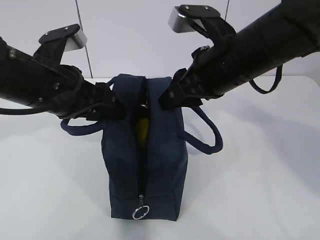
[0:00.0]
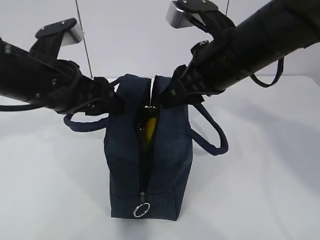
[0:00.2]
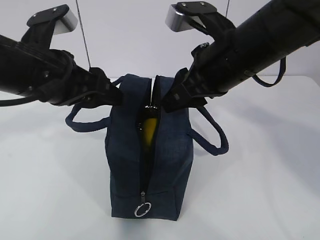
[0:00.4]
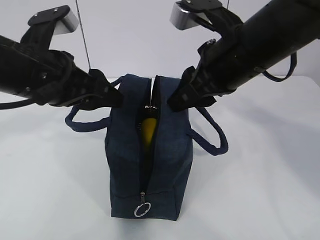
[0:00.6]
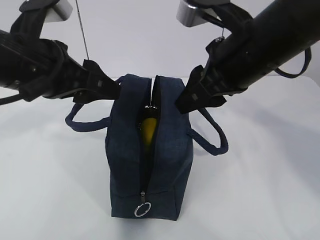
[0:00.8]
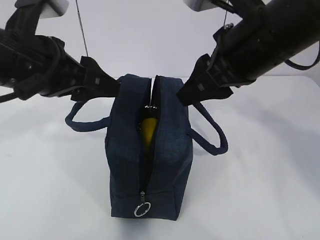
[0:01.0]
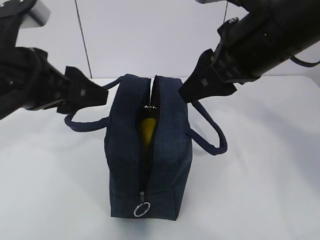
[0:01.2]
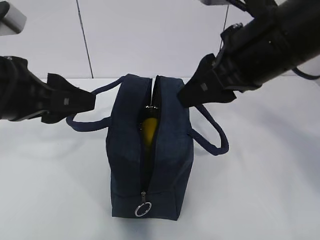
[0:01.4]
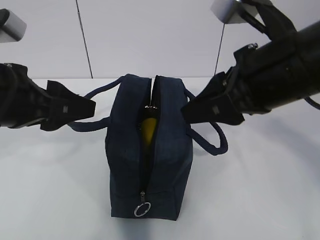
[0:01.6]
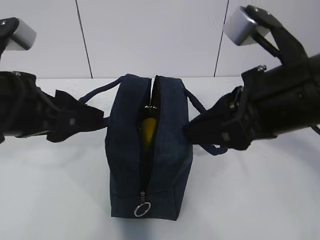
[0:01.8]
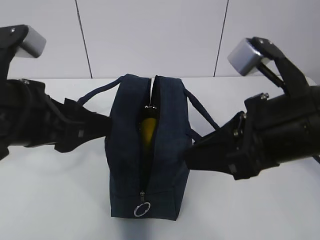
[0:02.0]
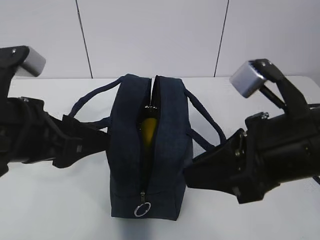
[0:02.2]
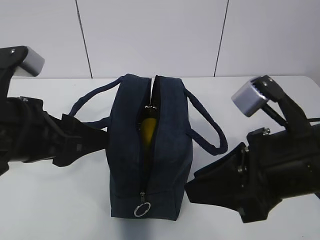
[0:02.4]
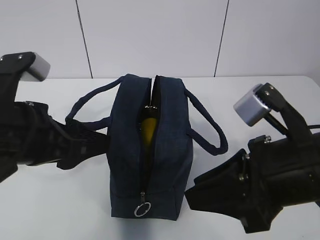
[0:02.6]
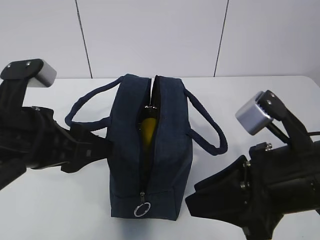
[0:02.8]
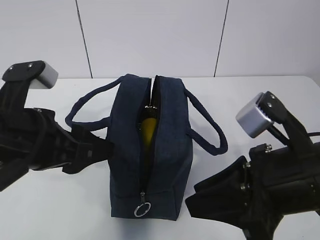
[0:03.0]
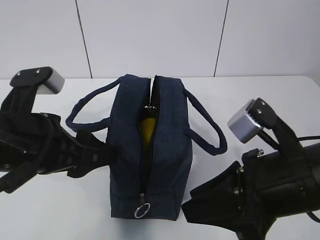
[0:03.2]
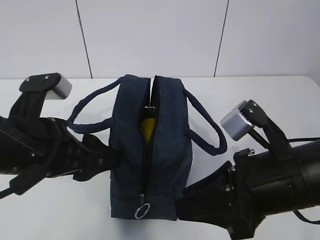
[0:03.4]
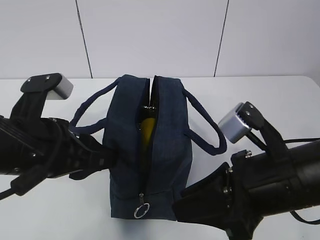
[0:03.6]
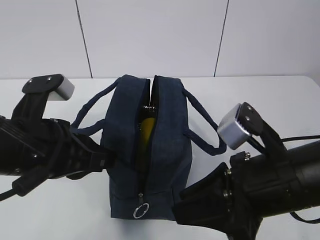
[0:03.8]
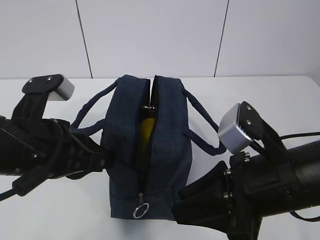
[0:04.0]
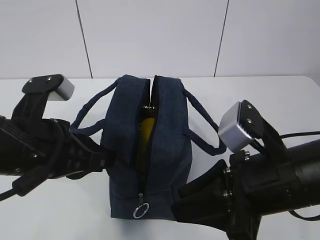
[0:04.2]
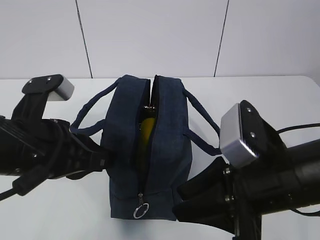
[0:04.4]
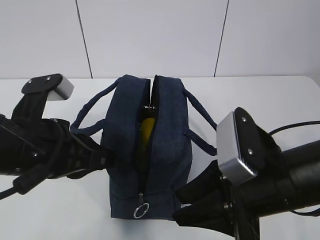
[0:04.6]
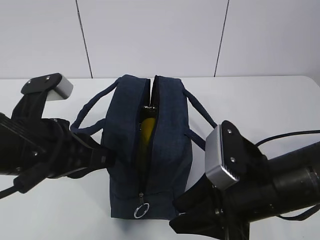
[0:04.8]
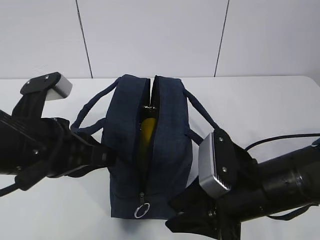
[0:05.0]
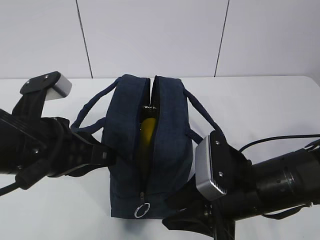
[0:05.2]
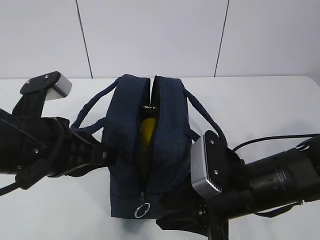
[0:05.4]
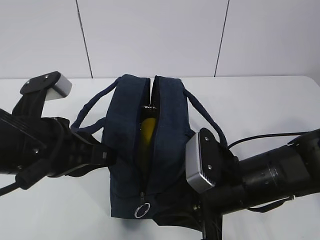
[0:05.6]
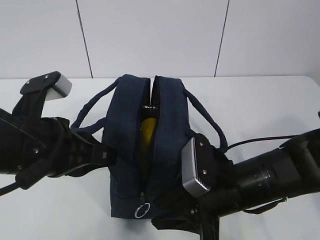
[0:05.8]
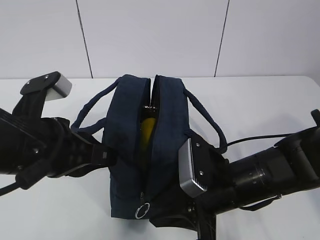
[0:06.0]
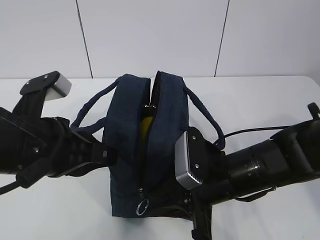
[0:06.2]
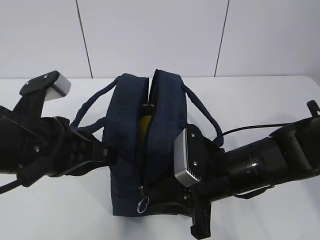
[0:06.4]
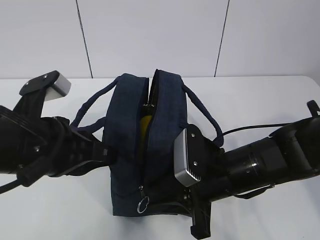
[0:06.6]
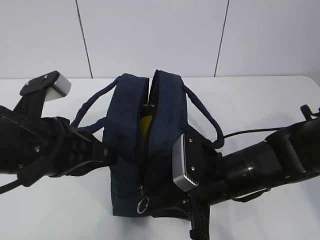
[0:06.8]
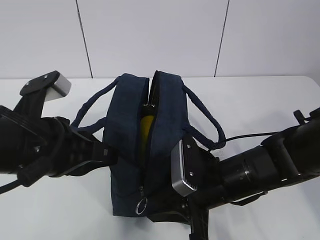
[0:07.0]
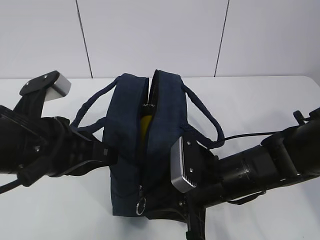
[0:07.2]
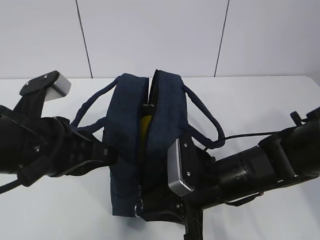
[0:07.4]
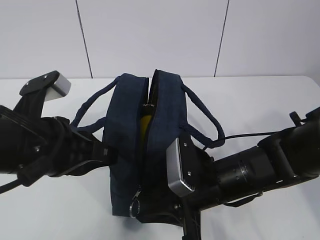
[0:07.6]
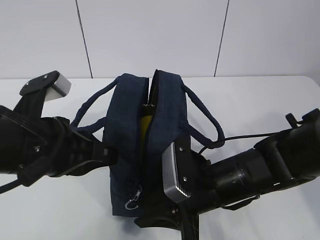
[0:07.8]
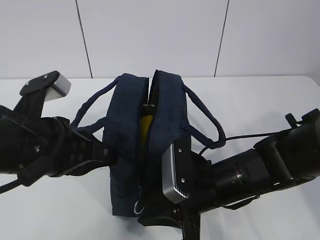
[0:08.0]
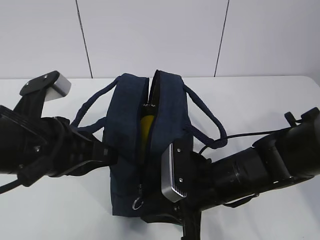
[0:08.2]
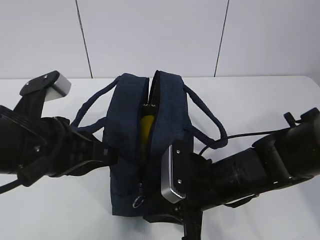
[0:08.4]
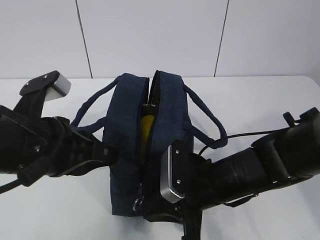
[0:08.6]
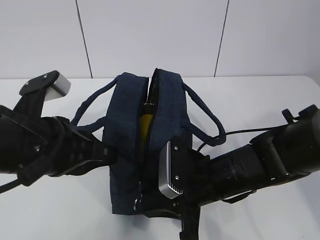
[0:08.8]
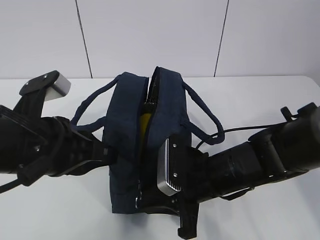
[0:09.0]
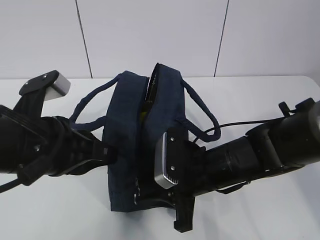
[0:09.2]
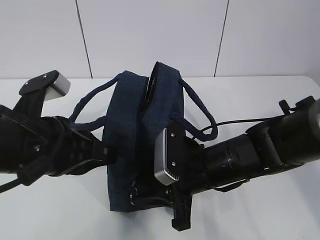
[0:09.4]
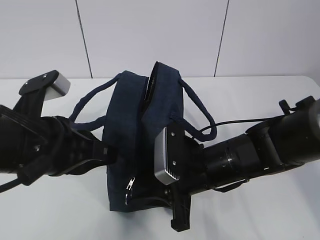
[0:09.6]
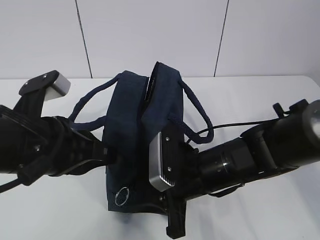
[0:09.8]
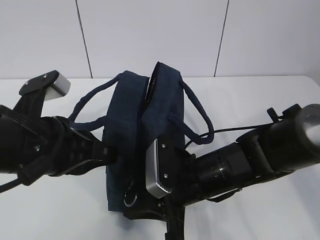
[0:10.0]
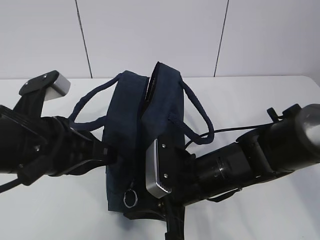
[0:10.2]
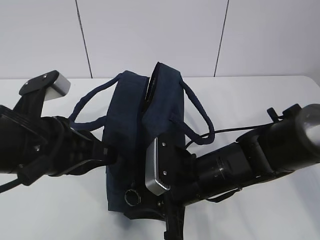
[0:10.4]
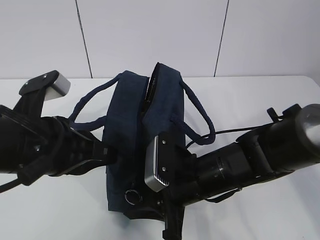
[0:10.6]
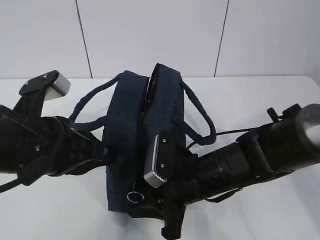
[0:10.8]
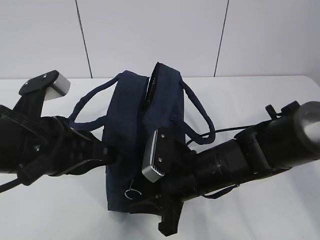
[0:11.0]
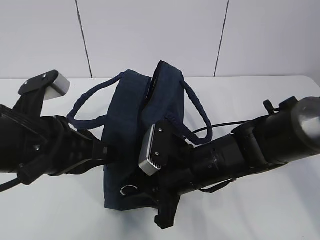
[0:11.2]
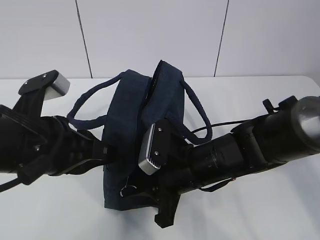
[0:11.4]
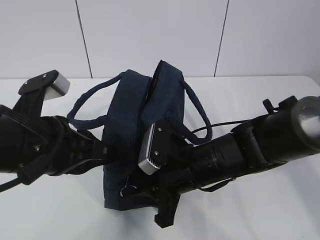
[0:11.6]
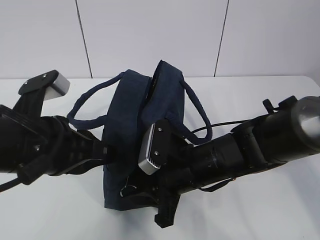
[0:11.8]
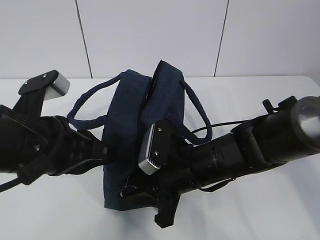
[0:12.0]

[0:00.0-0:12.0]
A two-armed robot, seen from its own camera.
0:00.0 to 0:01.6: Both grippers move backward, some 5 cm.
0:01.6 to 0:03.0: The left gripper moves some 5 cm. Meanwhile the right gripper moves downward and backward, approximately 10 cm.
0:03.0 to 0:04.4: The left gripper closes up.
0:04.4 to 0:06.0: The right gripper goes roughly 10 cm downward and forward.
0:06.0 to 0:12.0: The grippers make only small movements.

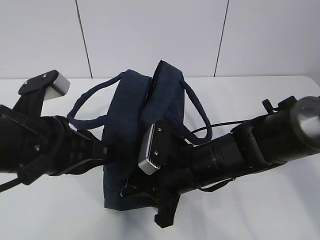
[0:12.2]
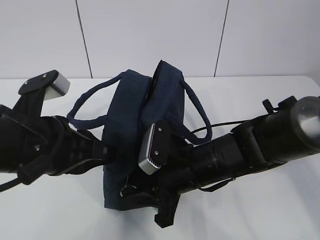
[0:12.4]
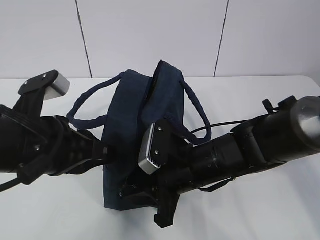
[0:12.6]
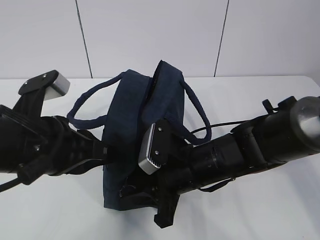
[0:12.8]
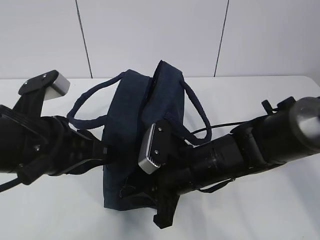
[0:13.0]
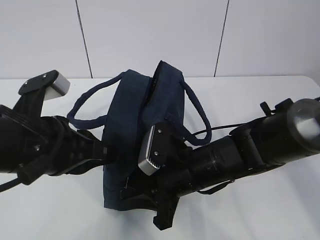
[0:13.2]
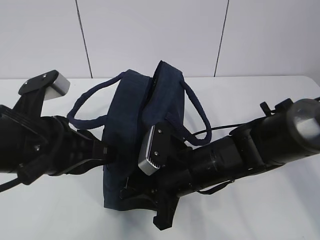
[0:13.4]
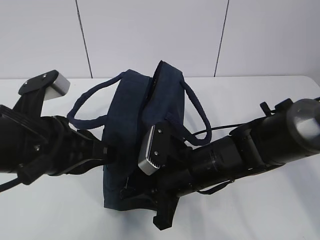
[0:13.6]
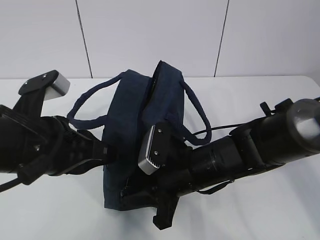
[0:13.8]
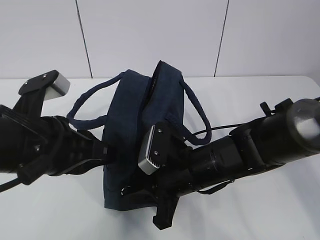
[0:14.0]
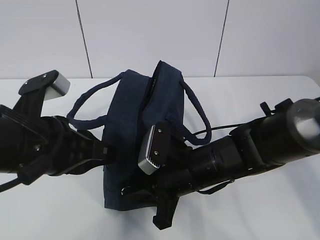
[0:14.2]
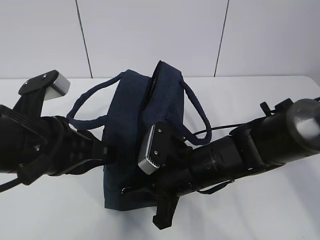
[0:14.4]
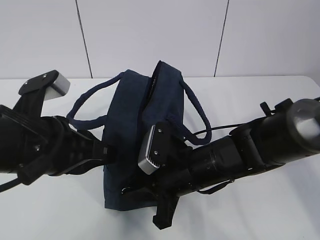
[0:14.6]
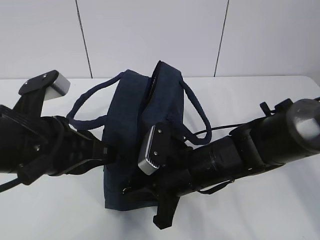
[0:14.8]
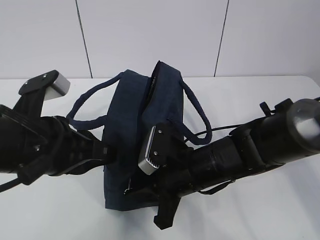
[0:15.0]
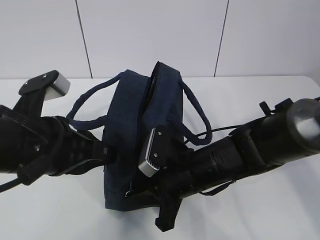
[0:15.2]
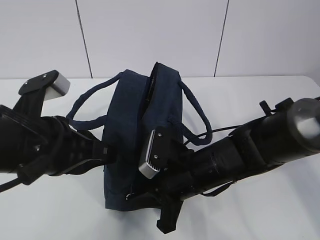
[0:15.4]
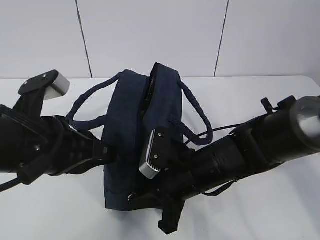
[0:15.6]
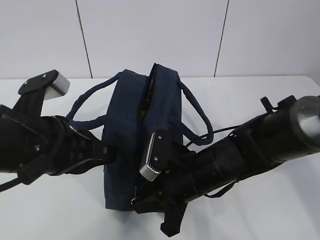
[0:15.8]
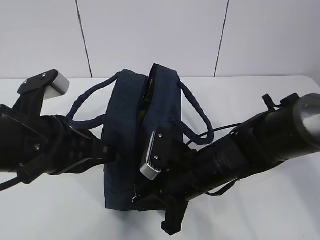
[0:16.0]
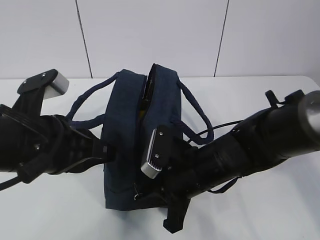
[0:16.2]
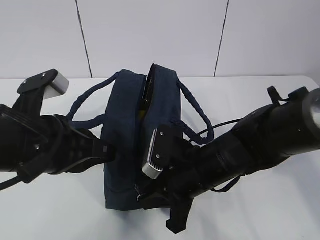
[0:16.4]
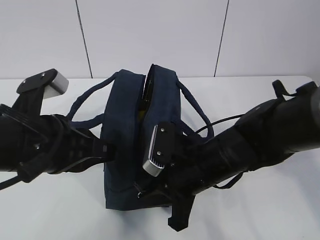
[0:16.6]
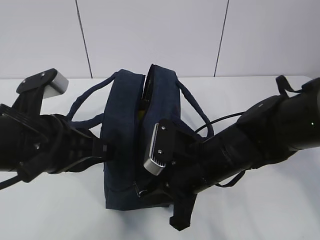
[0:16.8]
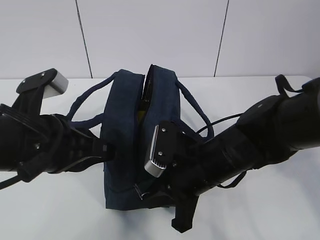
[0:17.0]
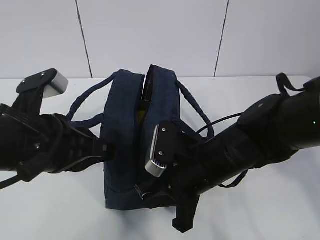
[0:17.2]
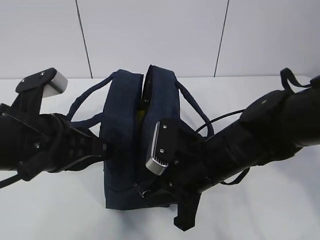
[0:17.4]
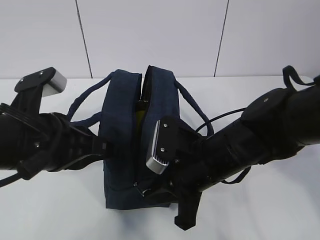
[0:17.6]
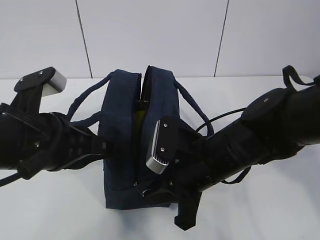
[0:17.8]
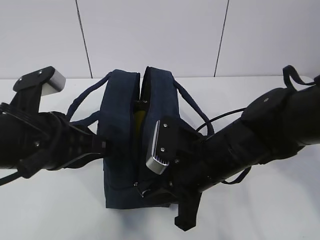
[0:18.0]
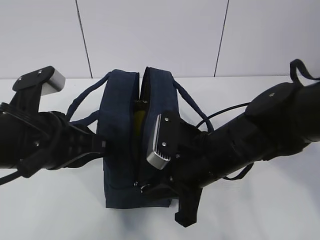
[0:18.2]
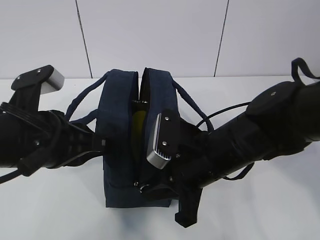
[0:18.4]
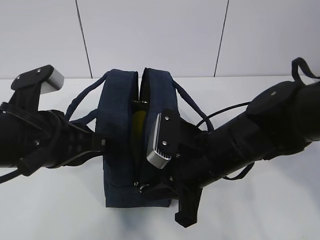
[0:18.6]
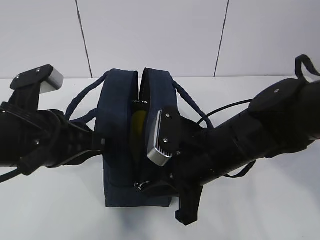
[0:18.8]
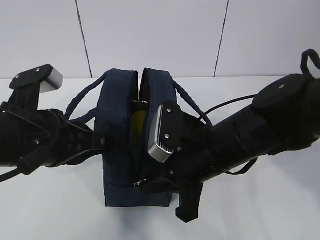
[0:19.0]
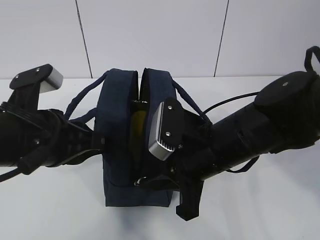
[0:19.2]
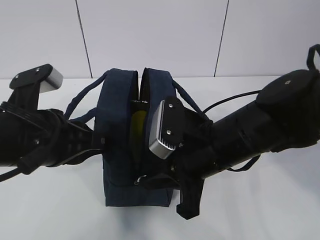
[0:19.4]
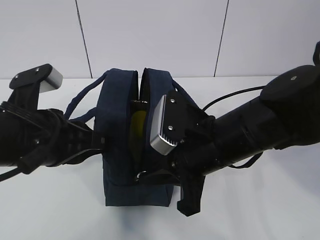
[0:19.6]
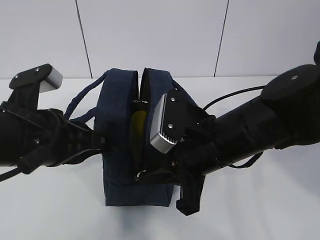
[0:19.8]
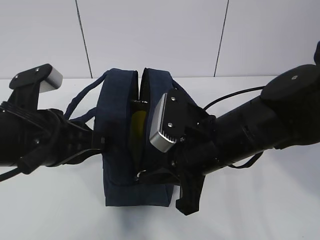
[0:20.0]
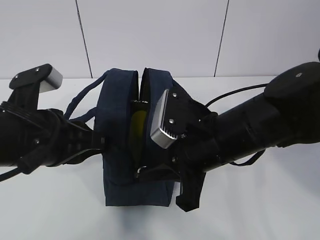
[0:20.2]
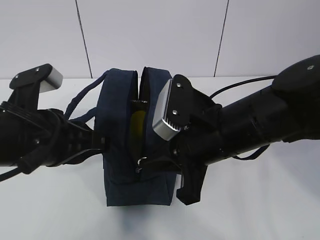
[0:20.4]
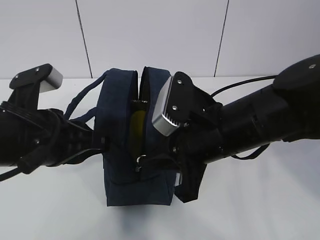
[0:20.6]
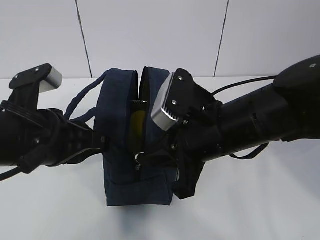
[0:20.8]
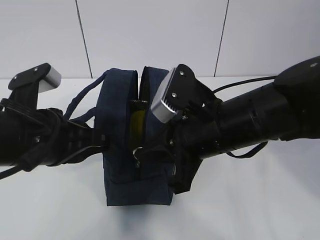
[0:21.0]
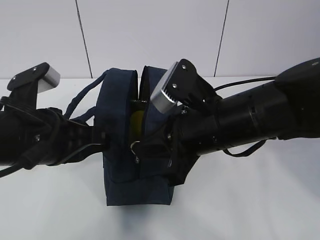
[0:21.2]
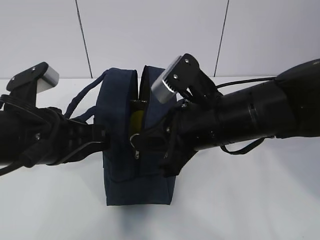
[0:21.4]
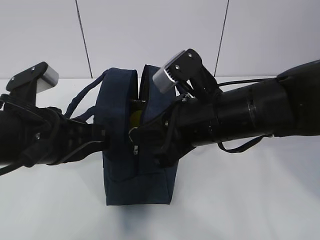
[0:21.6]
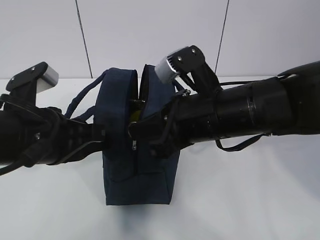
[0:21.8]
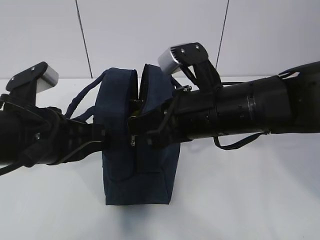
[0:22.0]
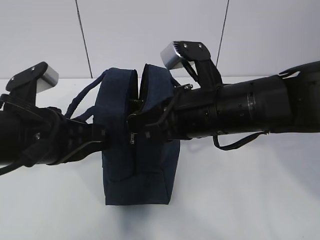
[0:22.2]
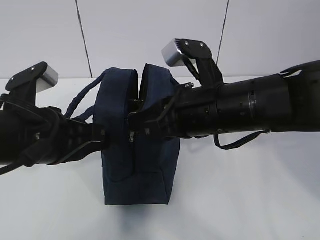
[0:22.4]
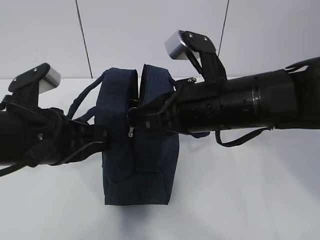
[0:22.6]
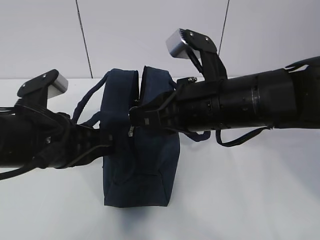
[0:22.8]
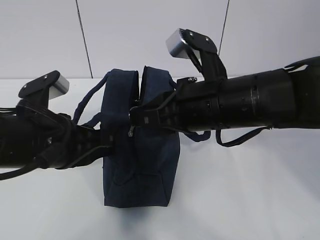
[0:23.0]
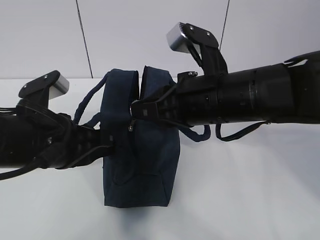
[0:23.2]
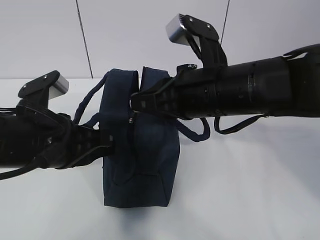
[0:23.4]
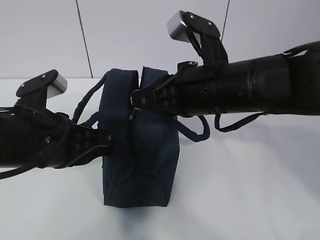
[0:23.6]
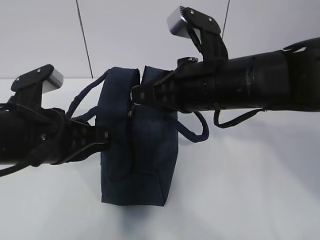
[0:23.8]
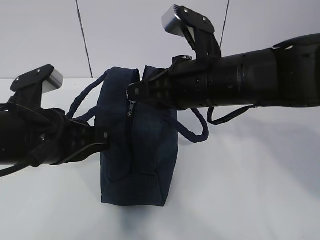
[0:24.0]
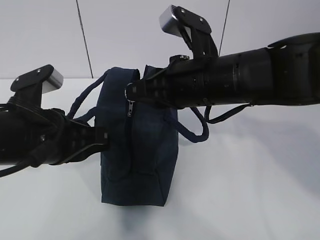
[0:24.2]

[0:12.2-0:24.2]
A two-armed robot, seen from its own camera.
Step, 0:17.4 to 0:23.8: Pull the zipper with your right hand.
0:12.2 to 0:15.2: The two grippers keep their place.
0:15.2 to 0:18.2: The grippers move only a little.
0:18.2 to 0:21.2: There are only small adjustments of the grippers.
0:22.6 to 0:24.2: There are only small adjustments of the grippers.
